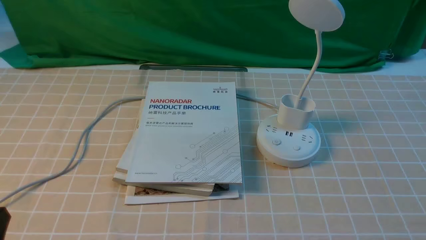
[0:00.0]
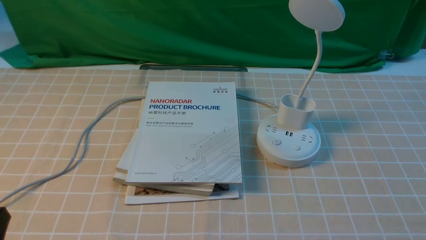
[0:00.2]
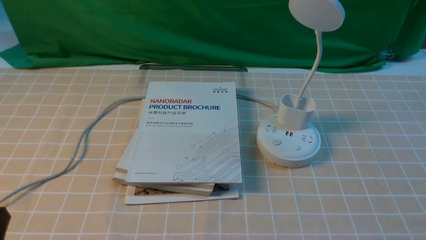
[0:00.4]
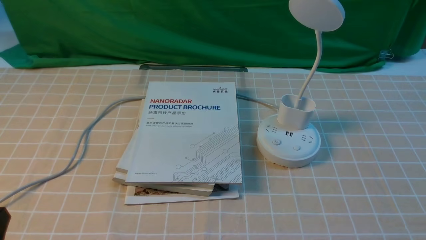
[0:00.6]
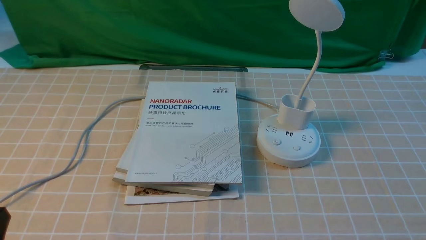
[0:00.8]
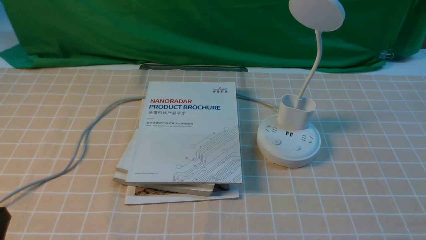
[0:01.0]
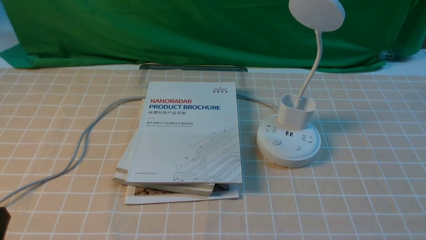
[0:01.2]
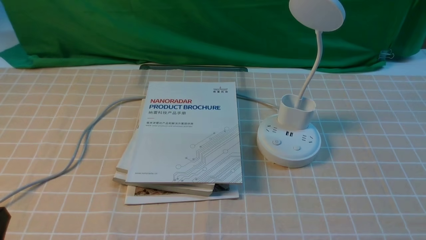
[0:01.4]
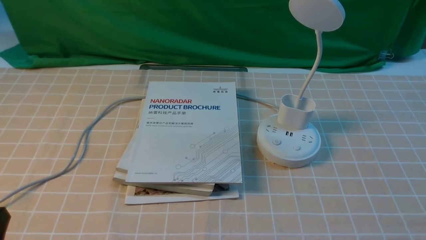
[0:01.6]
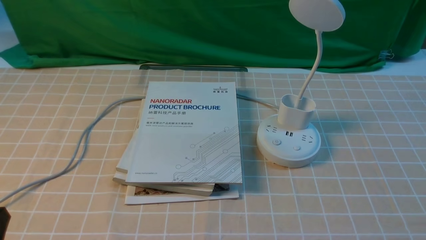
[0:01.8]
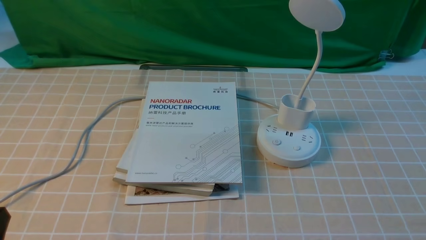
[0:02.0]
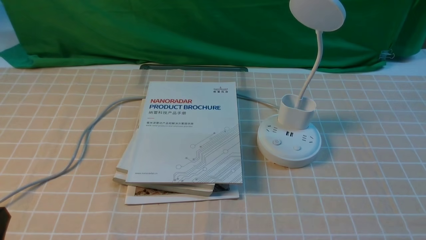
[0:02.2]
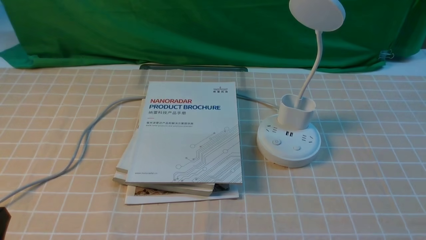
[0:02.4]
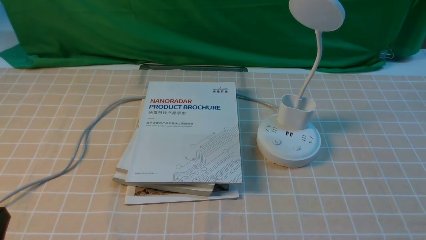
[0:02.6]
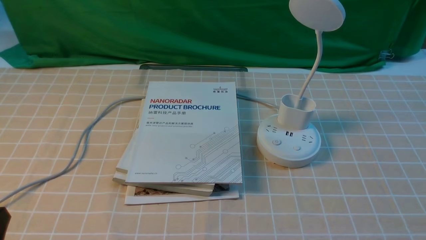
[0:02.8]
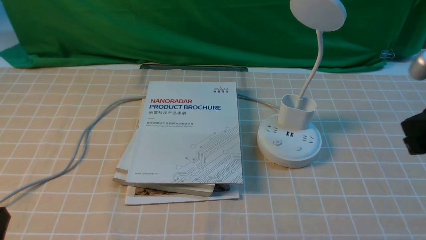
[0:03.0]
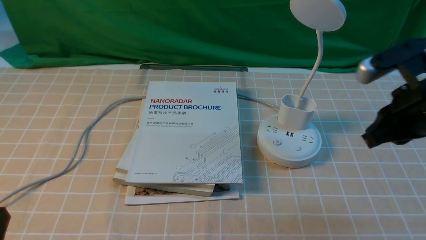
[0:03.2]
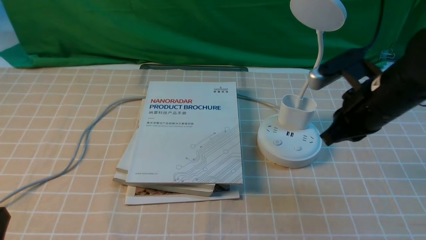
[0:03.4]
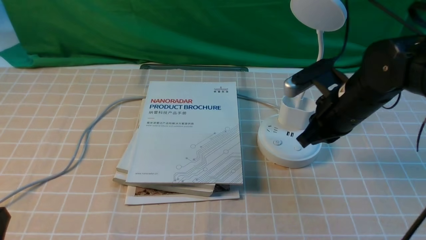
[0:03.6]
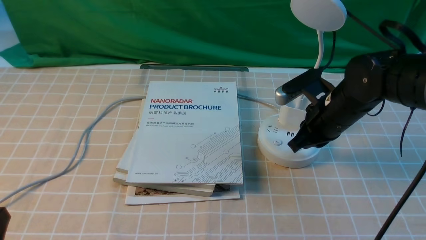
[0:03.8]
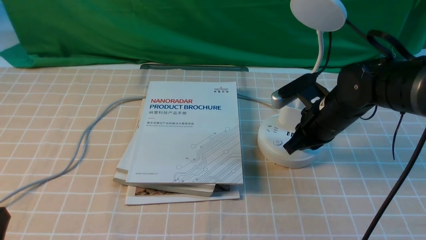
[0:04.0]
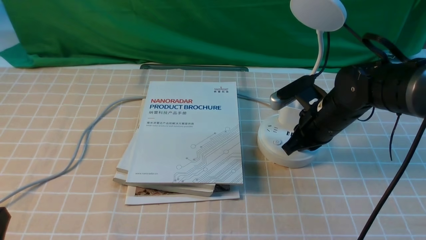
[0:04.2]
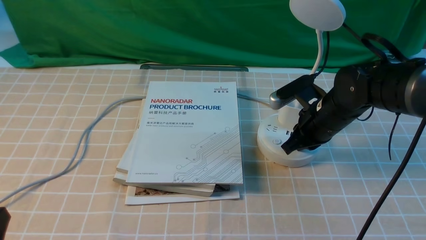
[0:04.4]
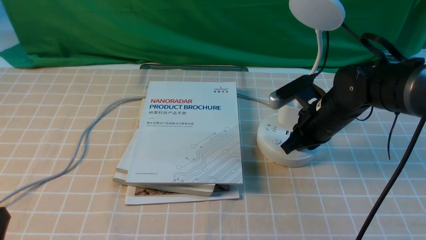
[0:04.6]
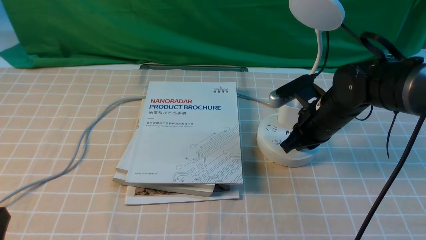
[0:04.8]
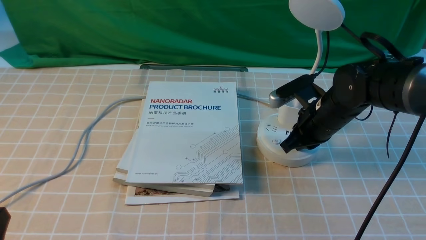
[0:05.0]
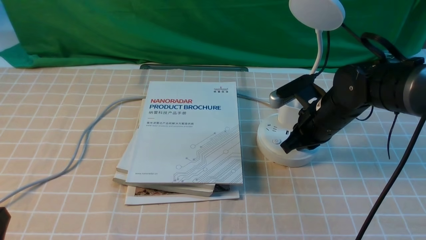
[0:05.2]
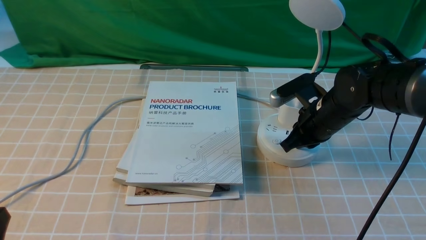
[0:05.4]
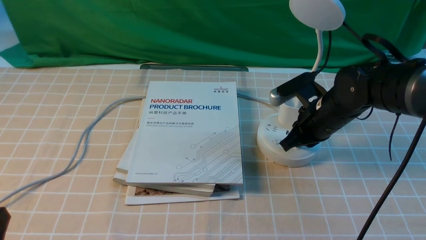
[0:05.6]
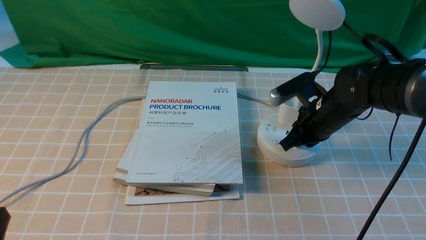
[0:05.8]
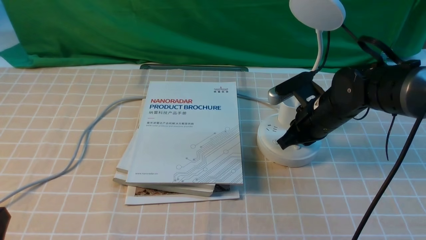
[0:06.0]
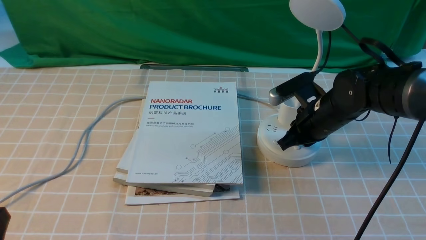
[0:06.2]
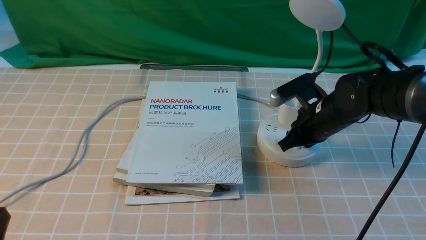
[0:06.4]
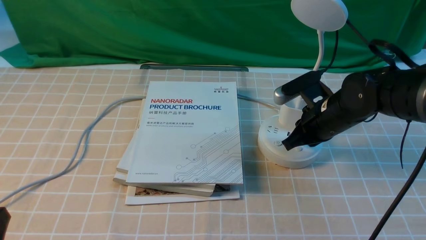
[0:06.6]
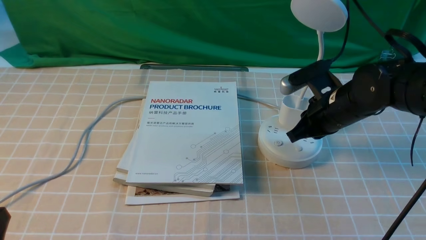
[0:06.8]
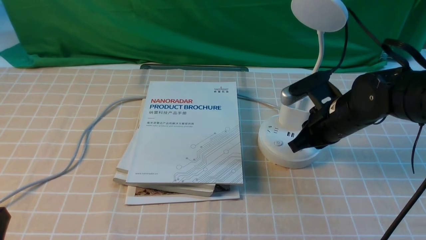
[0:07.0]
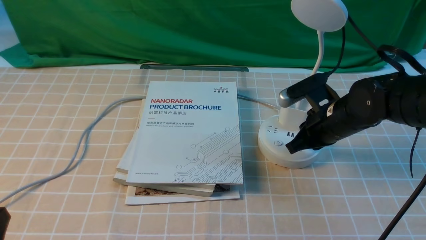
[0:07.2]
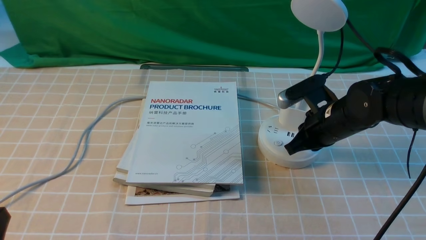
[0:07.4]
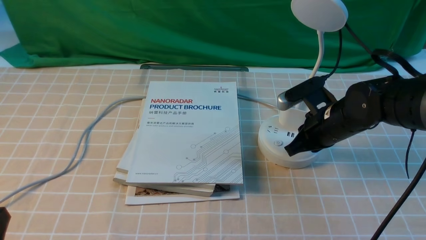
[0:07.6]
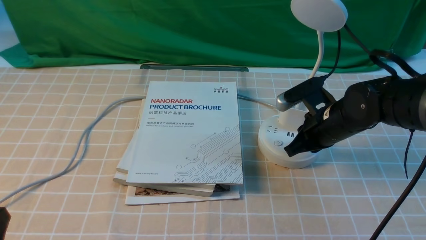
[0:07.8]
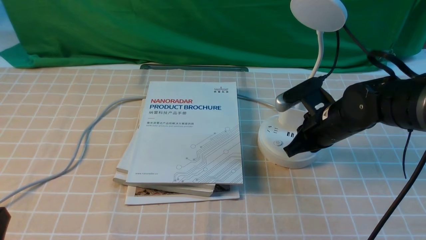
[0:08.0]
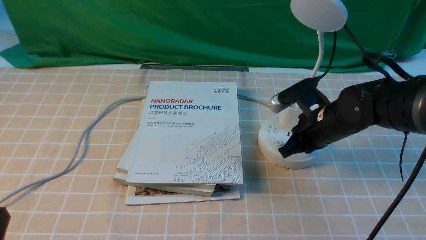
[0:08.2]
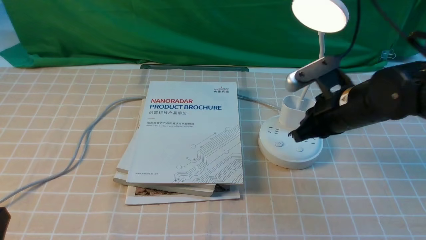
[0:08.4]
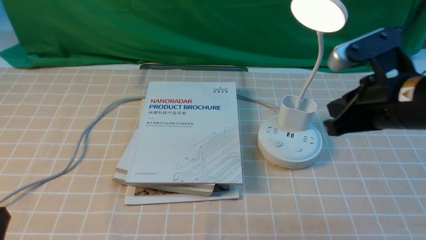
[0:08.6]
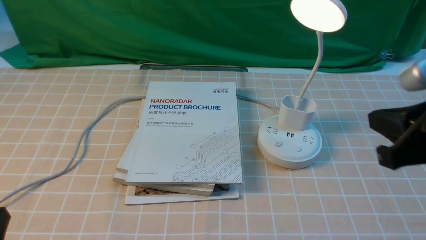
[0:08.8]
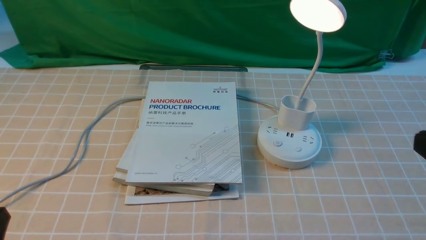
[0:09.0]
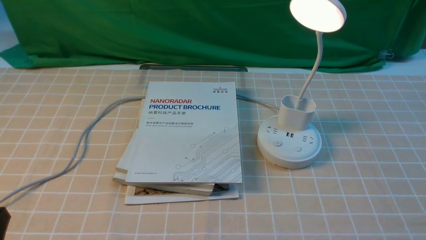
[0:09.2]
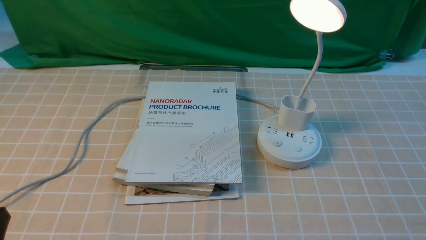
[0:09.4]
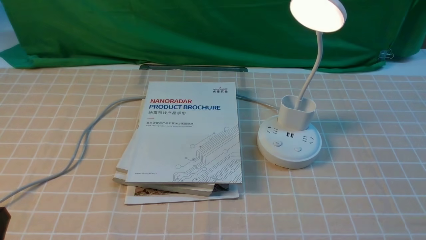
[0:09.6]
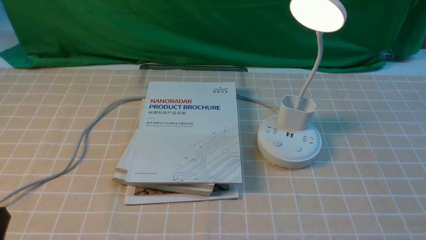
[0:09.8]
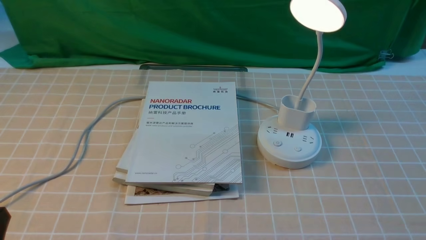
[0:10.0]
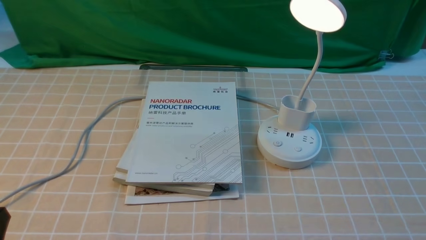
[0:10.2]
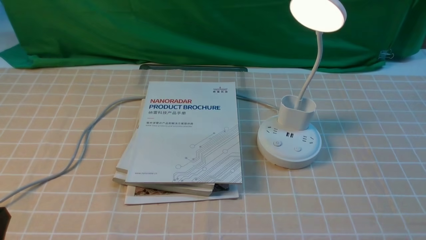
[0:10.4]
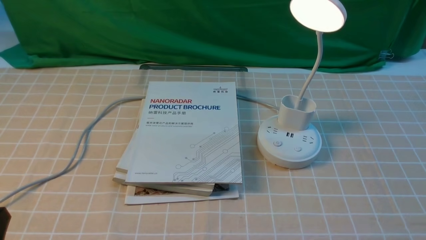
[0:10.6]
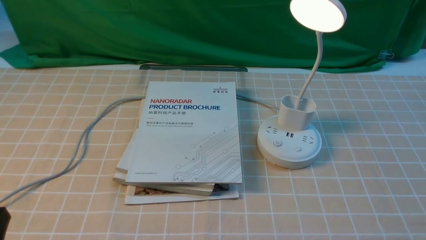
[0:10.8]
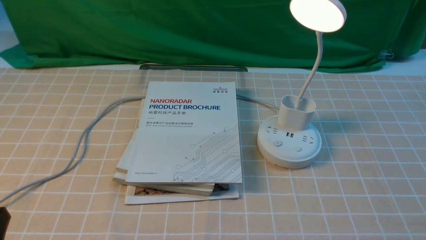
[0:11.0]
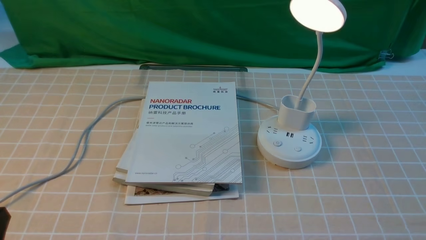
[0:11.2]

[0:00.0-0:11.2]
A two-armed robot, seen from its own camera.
Step, 0:00.0 to 0:08.4: use the right arm to press the button switch on the lamp holder.
0:01.6 to 0:03.2: The right gripper travels forward and upward by roughly 25 cm, and closes.
0:03.2 to 0:04.8: The right gripper heads downward, forward and to the left, covering roughly 15 cm.
0:04.8 to 0:08.0: The grippers make only small movements.
0:08.0 to 0:09.6: The right gripper moves backward and to the right, approximately 30 cm.

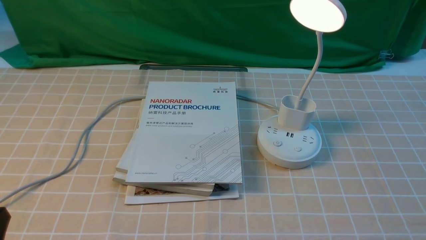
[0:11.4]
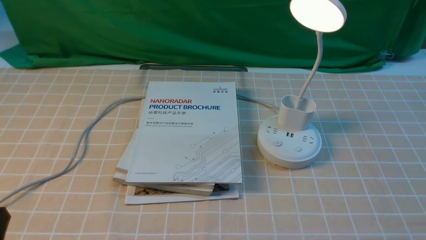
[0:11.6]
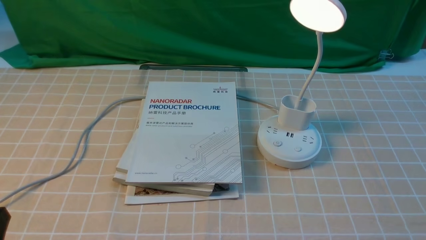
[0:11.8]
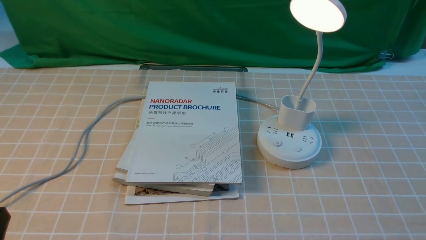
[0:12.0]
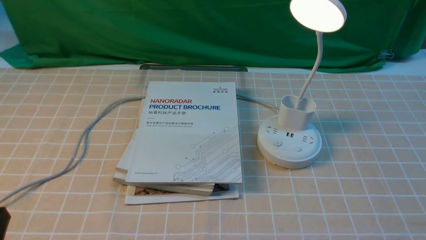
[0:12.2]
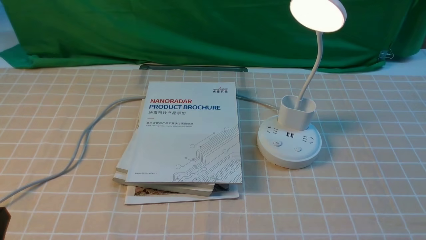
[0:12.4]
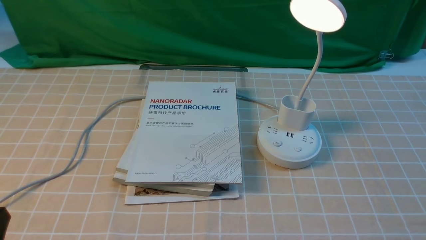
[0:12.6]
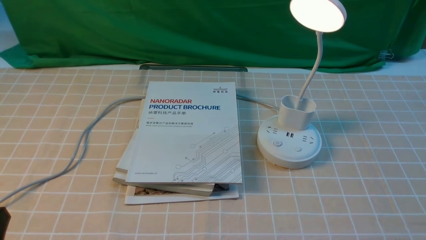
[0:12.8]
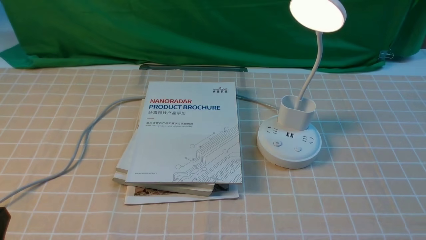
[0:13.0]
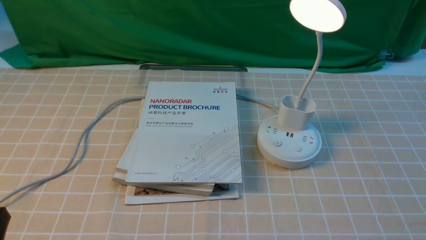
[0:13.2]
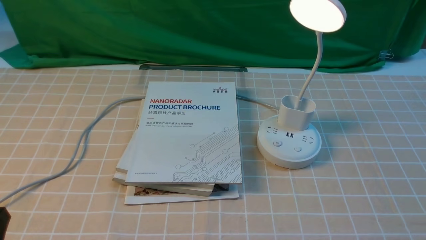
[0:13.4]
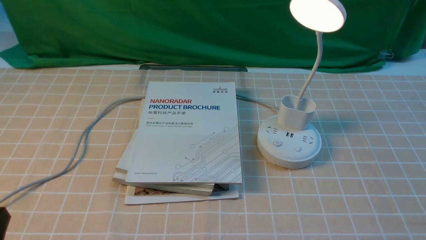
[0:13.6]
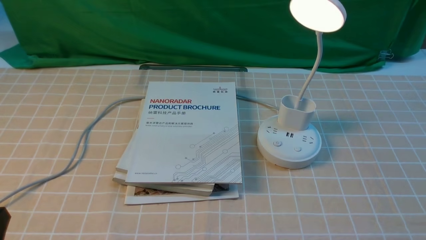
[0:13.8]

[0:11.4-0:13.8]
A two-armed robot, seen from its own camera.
0:11.4 to 0:13.8: Both grippers stay about where they are.
